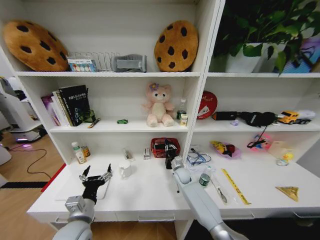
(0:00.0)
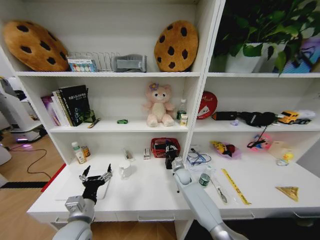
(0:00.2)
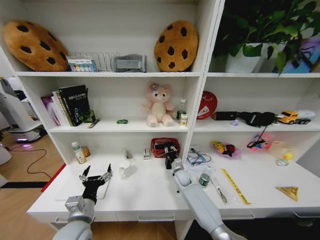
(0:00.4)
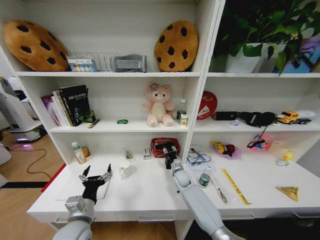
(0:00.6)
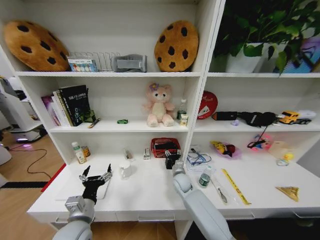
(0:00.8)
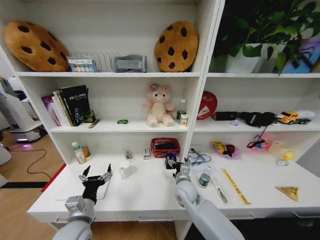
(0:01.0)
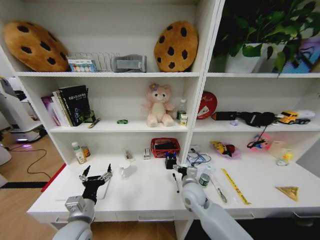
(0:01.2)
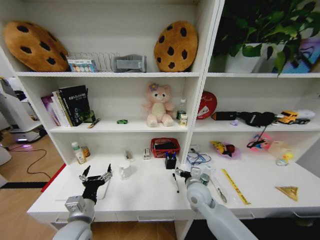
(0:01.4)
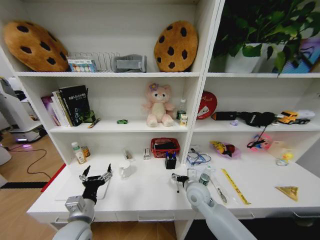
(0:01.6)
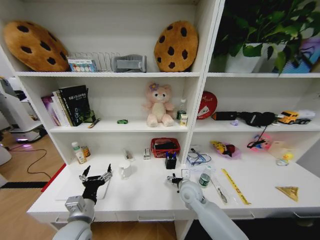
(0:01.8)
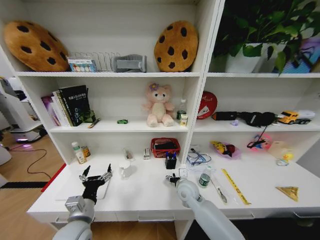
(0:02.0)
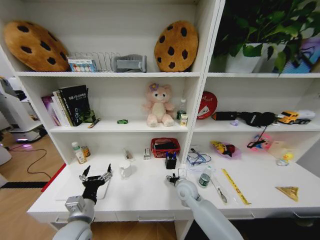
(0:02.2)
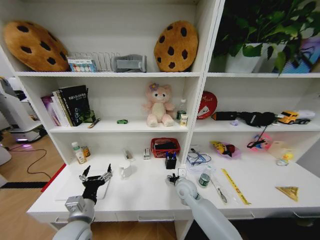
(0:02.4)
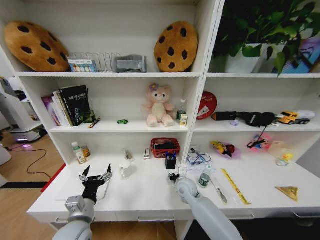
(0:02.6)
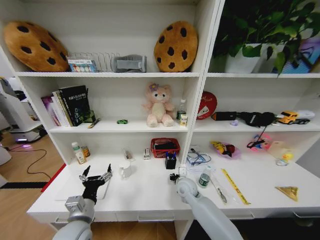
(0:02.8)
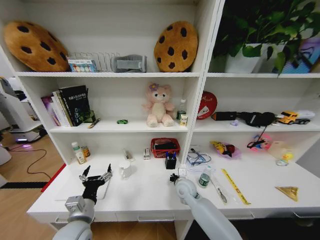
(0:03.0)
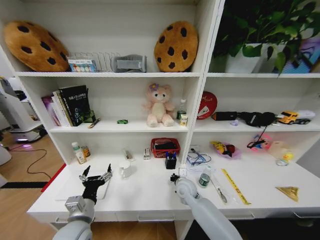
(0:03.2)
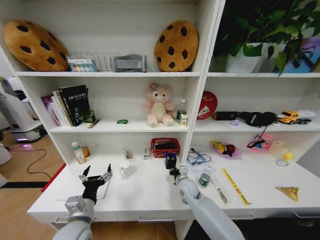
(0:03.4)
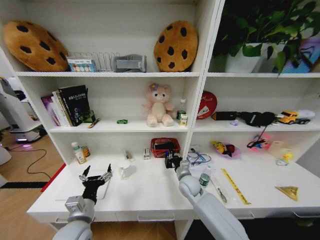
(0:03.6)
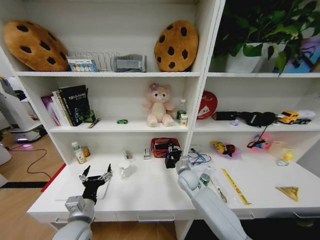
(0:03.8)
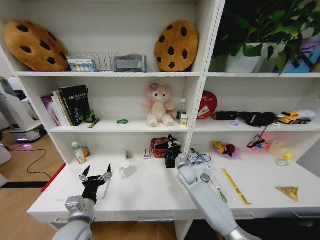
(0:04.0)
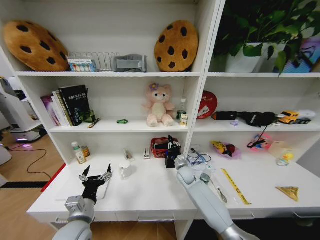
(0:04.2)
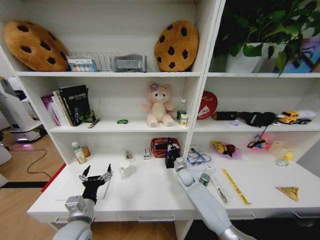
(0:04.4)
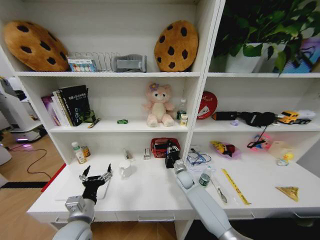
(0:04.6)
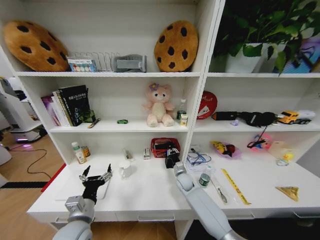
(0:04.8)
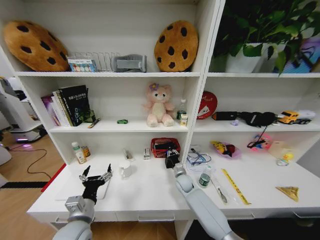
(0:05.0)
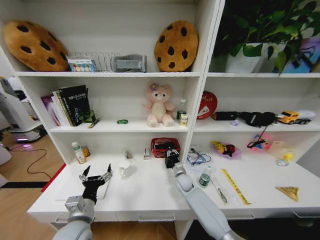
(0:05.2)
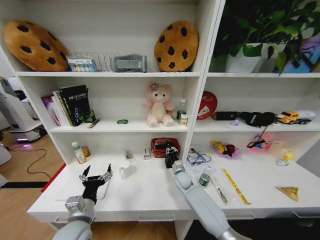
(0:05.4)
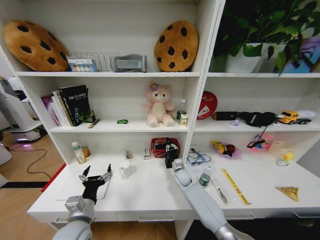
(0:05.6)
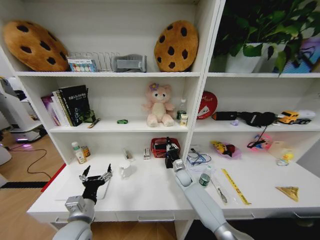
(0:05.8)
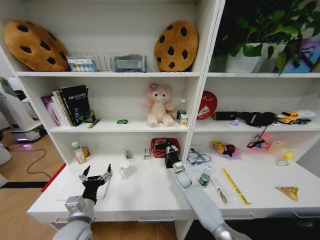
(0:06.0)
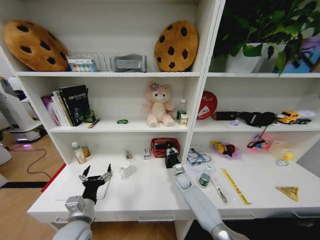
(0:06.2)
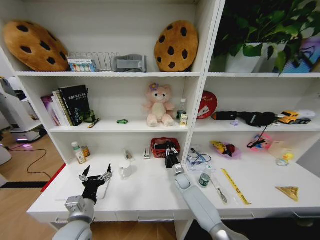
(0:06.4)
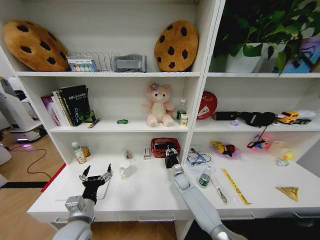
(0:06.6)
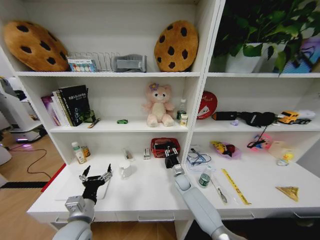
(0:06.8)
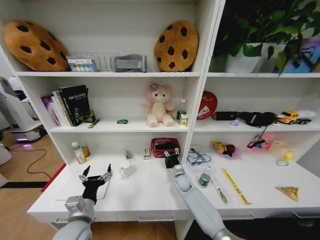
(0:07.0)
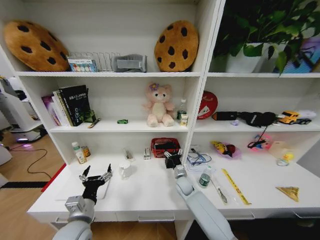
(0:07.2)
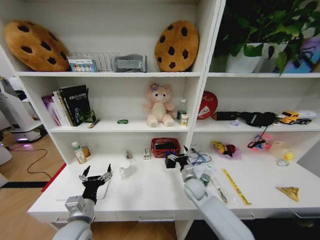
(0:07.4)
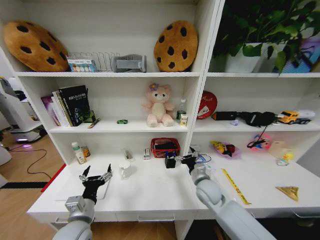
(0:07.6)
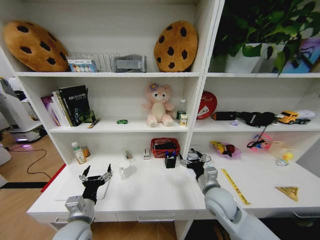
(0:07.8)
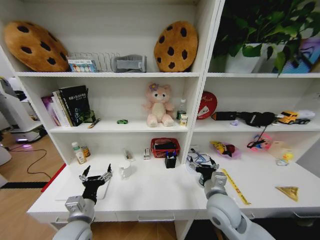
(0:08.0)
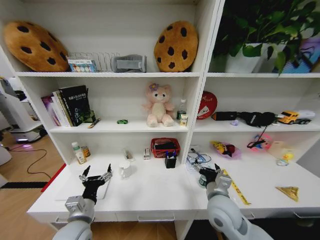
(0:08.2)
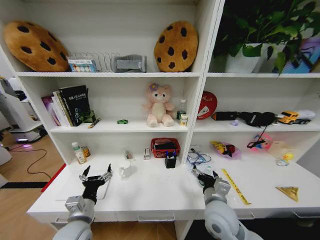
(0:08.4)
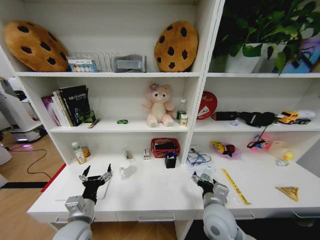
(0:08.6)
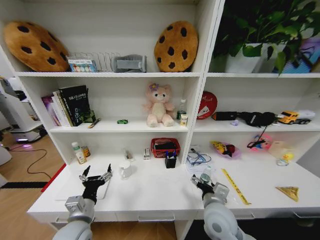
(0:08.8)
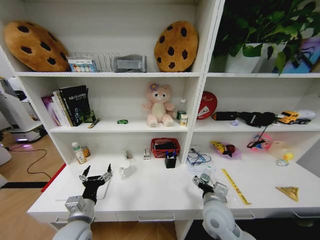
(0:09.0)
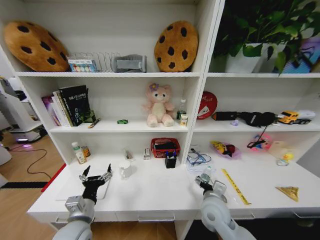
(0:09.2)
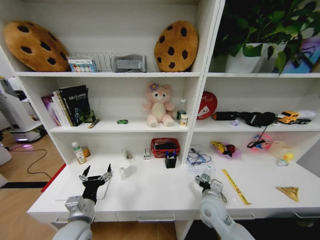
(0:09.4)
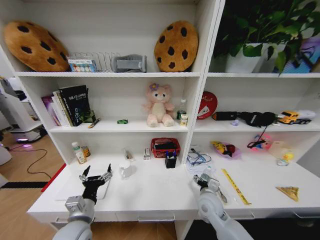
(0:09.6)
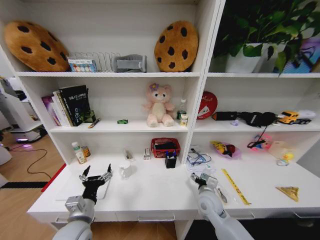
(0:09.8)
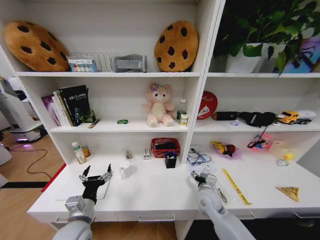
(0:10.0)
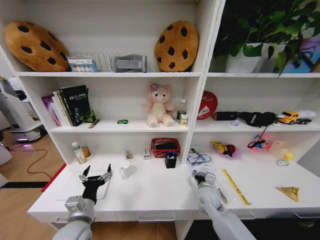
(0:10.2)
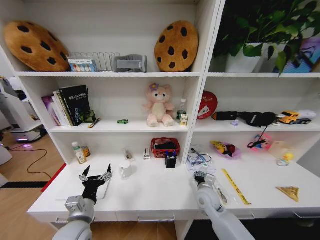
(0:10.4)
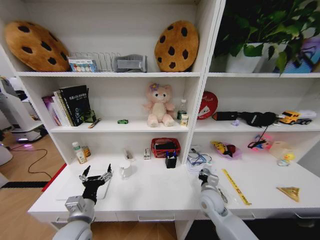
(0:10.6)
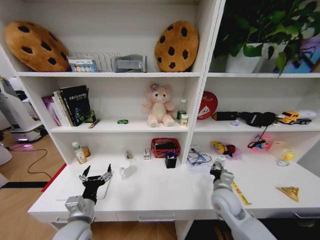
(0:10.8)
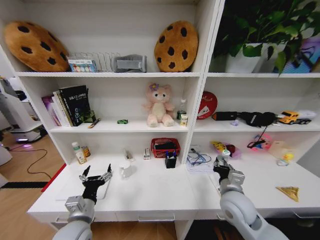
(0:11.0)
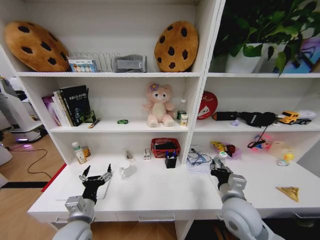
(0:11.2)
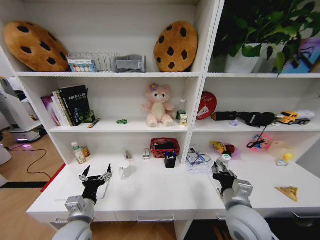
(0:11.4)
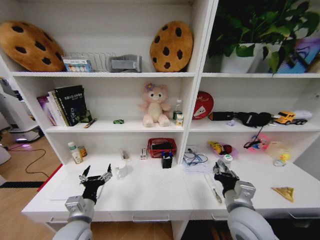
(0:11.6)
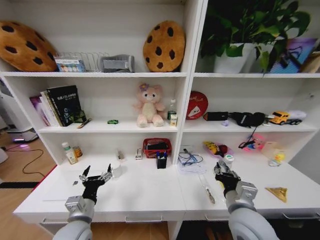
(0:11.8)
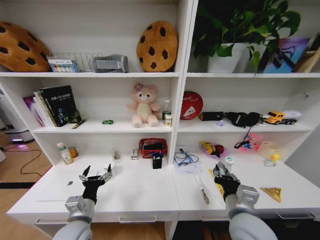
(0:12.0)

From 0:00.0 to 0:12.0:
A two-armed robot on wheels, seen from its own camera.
Task of the whole recording: Organize the objects on the table.
From 0:00.0 to 0:01.6: The right gripper heads backward and upward, covering about 20 cm, and opens up.
From 0:01.6 to 0:03.0: The right gripper moves approximately 5 cm, and closes.
From 0:03.0 to 0:04.4: The right gripper is displaced forward by approximately 10 cm.
From 0:04.4 to 0:06.0: The grippers make only small movements.
From 0:06.0 to 0:07.6: The right gripper heads upward and backward, covering some 20 cm, and opens.
From 0:07.6 to 0:09.0: The right gripper is displaced backward by approximately 10 cm.
From 0:09.0 to 0:10.4: The right gripper heads forward and downward, covering some 10 cm.
From 0:10.4 to 0:12.0: The right gripper goes about 20 cm backward and upward, and closes.

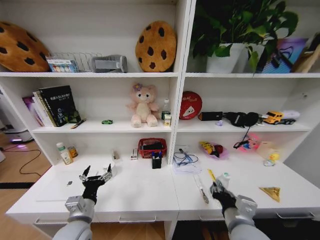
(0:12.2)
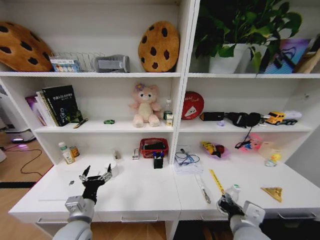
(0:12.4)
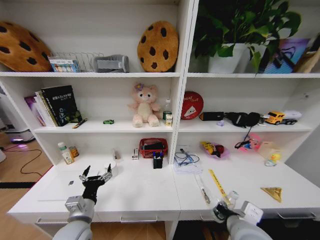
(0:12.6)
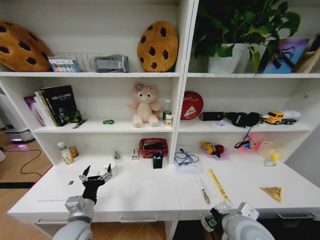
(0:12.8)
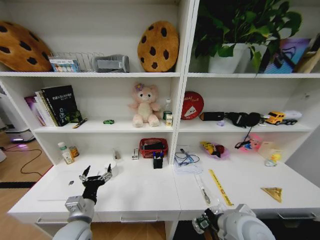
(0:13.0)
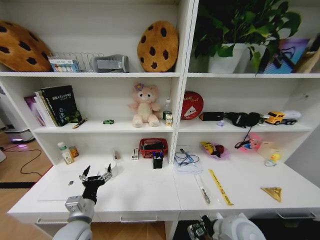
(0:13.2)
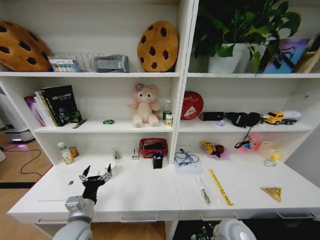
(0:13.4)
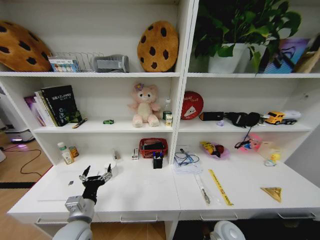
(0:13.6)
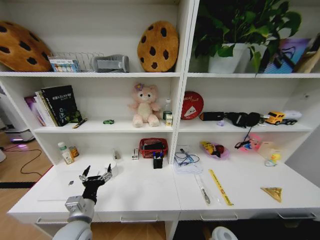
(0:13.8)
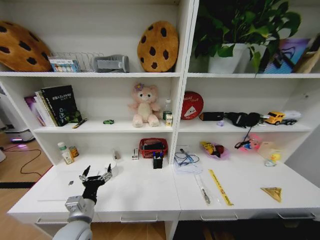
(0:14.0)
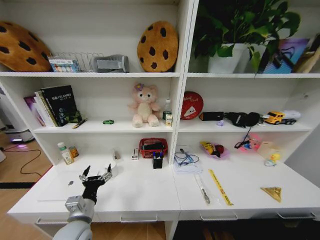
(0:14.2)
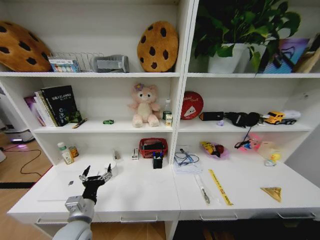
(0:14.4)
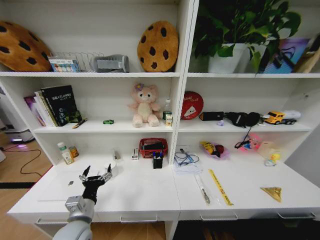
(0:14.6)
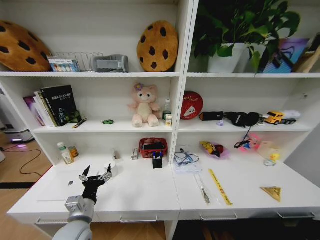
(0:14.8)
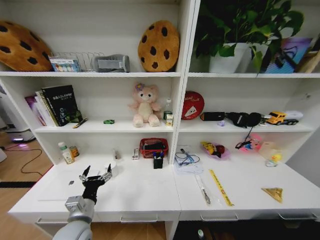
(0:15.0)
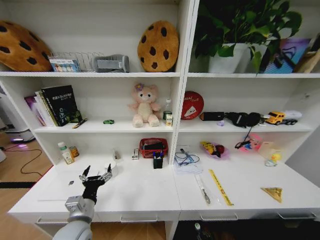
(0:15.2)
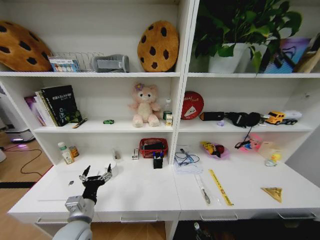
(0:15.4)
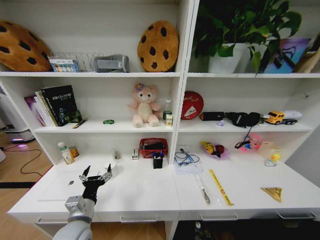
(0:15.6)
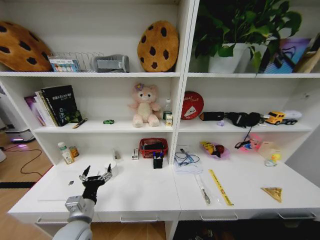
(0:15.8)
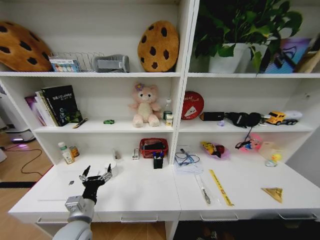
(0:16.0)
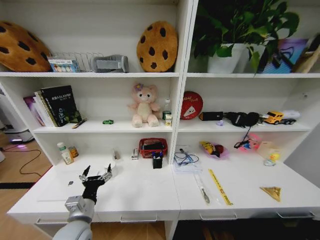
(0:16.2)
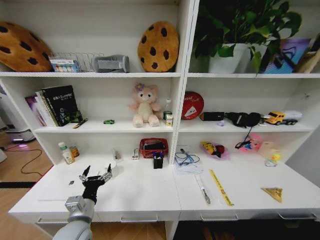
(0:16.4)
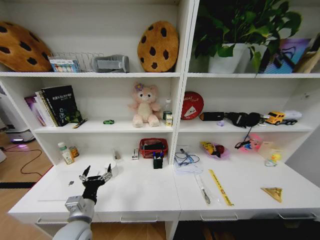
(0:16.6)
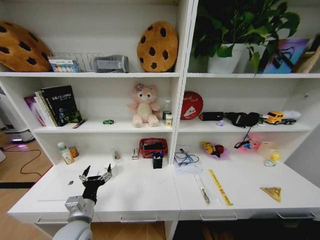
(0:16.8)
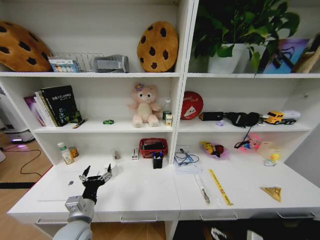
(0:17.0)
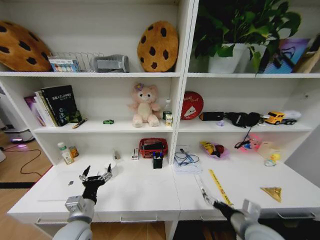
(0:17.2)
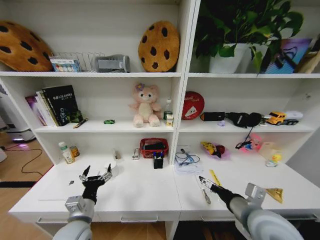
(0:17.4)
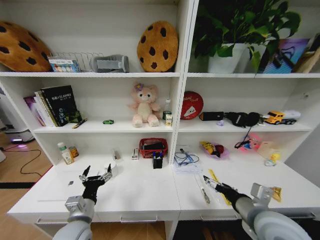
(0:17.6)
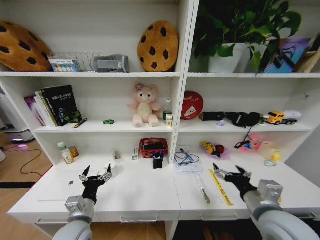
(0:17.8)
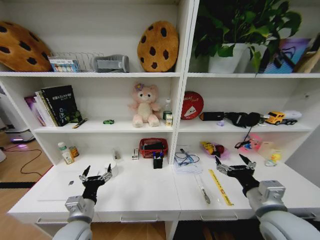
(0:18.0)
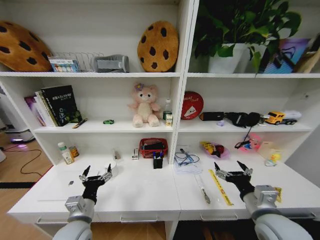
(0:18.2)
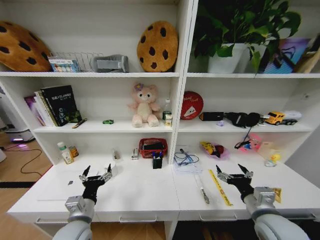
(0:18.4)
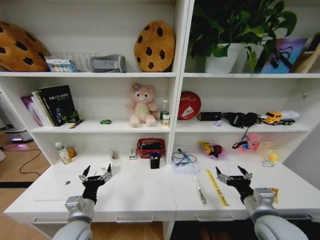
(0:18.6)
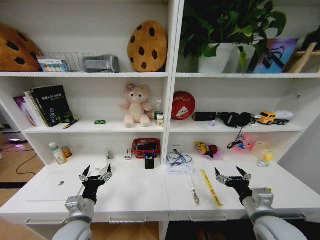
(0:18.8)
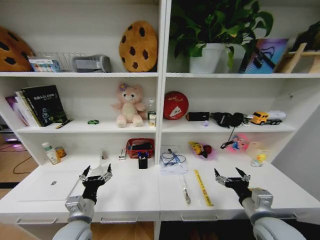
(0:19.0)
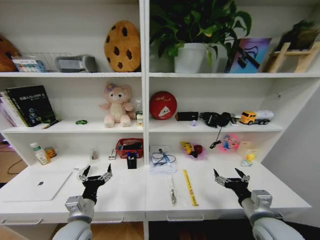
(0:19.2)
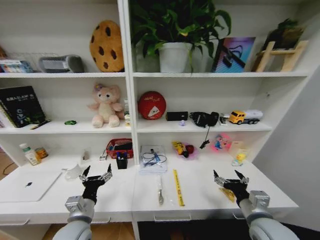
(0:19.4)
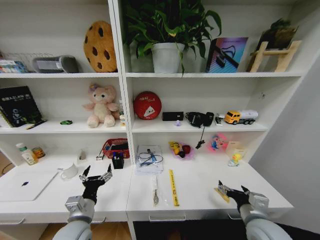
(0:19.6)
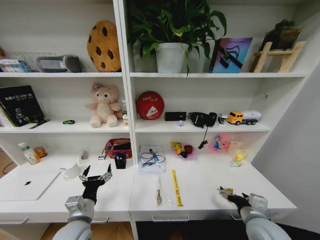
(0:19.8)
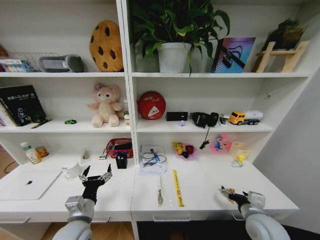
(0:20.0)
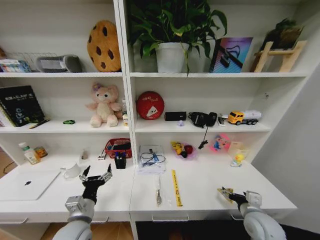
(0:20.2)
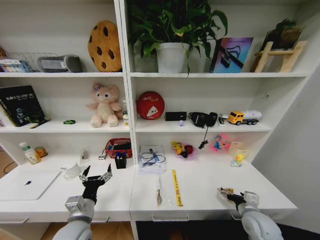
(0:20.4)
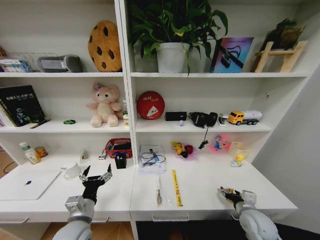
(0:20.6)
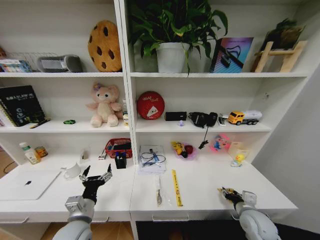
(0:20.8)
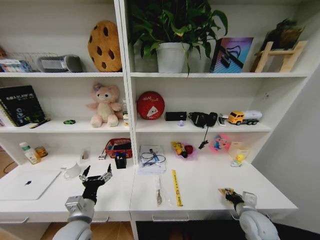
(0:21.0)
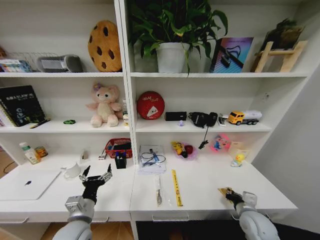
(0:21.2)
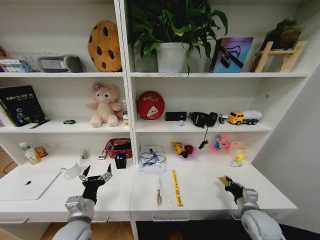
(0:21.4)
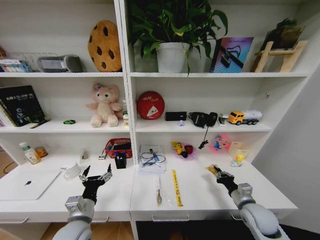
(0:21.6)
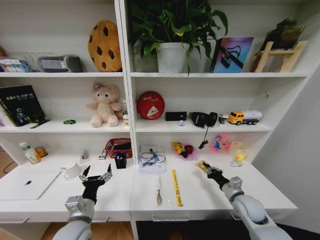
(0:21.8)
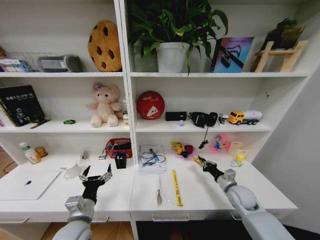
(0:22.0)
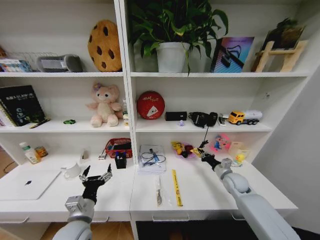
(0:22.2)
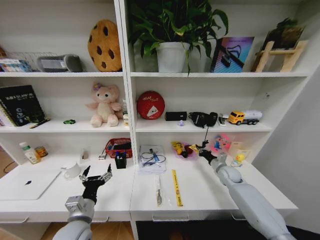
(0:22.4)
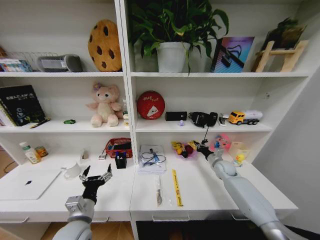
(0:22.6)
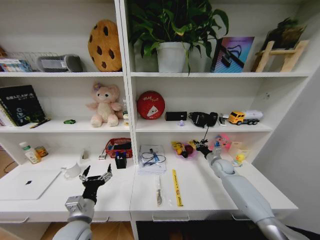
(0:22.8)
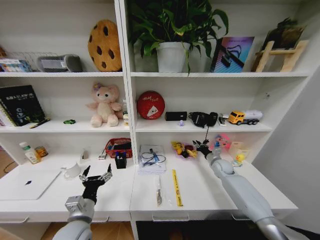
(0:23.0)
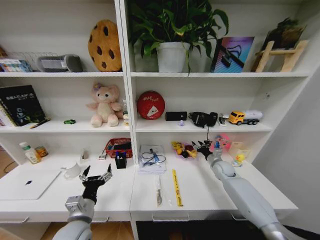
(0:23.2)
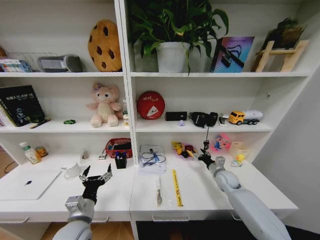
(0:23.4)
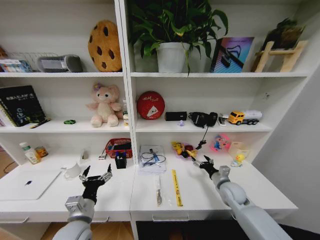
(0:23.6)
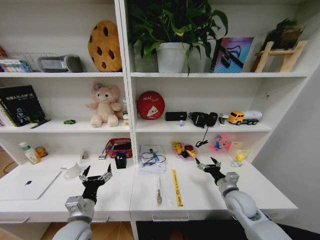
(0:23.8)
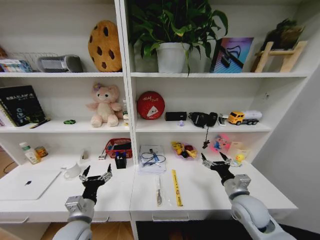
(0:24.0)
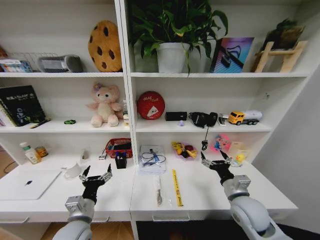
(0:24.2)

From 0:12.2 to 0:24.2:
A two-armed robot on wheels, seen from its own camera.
Task of the whole recording: Organize the objects on the table.
From 0:12.2 to 0:13.8: The right gripper moves downward, about 20 cm.
From 0:16.6 to 0:18.2: The right gripper goes some 35 cm upward.
From 0:18.2 to 0:19.8: The right gripper moves downward, approximately 10 cm.
From 0:19.8 to 0:21.2: The right gripper moves downward, some 10 cm, and closes its fingers.
From 0:21.2 to 0:22.6: The right gripper shifts approximately 25 cm forward.
From 0:22.6 to 0:24.2: The right gripper travels backward and to the left by some 25 cm, and opens up.
